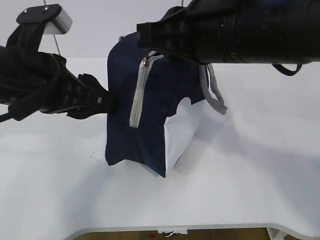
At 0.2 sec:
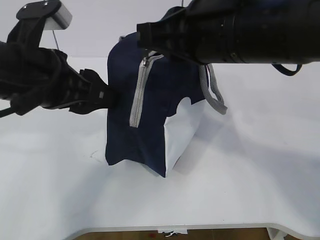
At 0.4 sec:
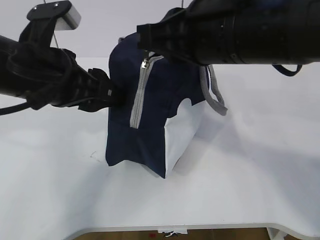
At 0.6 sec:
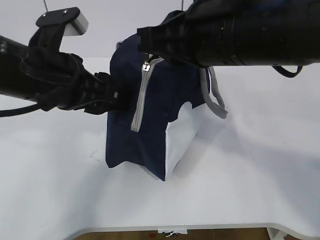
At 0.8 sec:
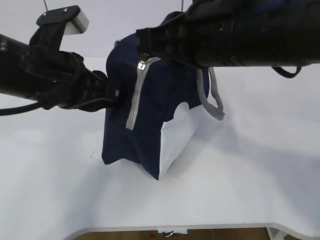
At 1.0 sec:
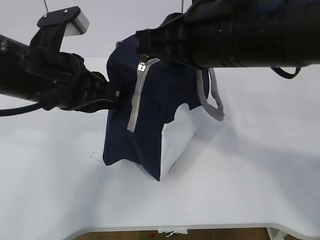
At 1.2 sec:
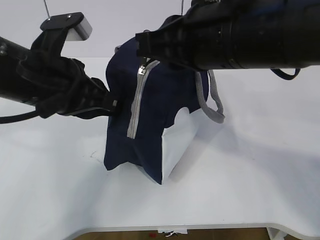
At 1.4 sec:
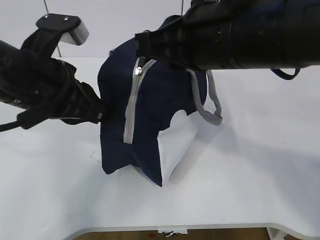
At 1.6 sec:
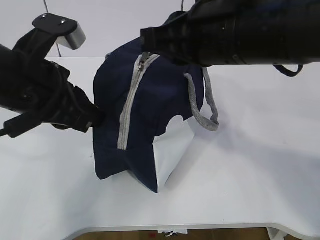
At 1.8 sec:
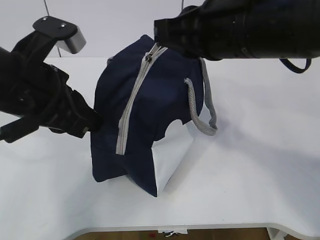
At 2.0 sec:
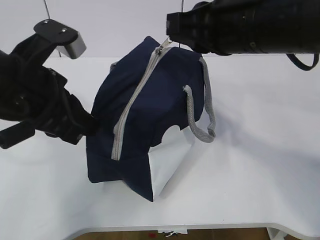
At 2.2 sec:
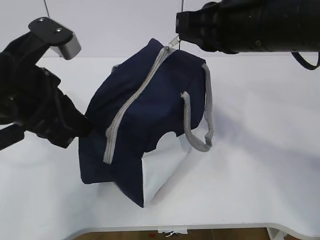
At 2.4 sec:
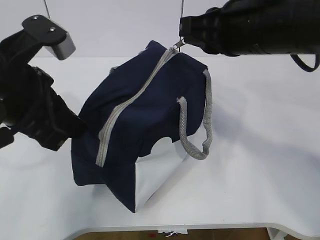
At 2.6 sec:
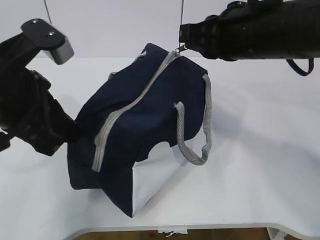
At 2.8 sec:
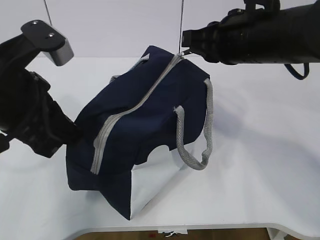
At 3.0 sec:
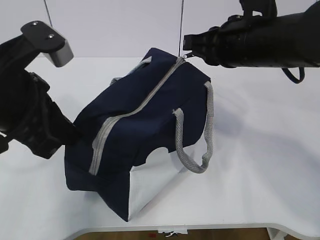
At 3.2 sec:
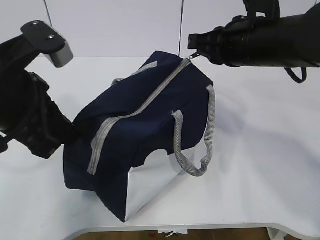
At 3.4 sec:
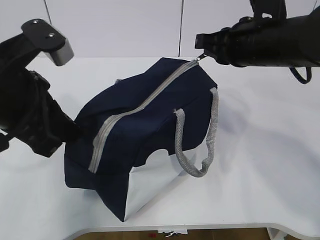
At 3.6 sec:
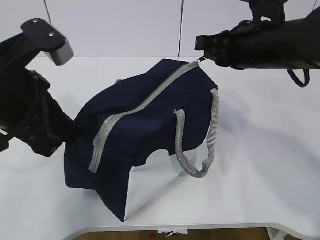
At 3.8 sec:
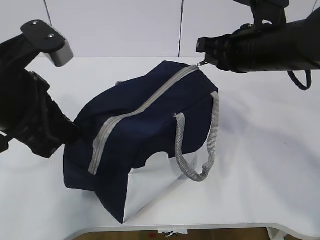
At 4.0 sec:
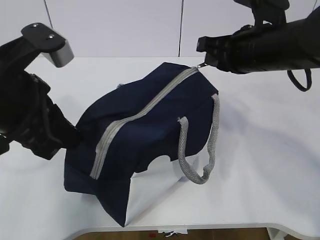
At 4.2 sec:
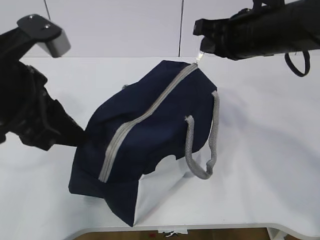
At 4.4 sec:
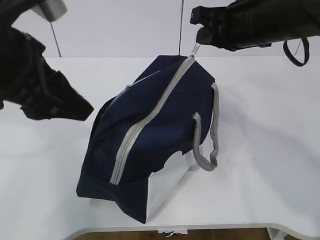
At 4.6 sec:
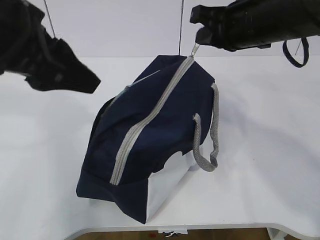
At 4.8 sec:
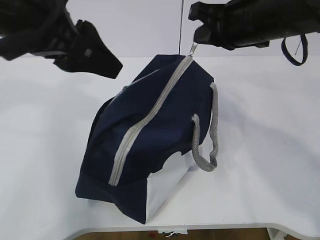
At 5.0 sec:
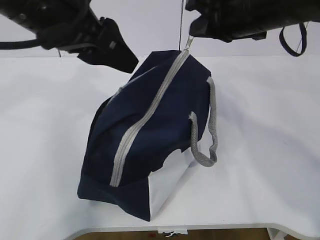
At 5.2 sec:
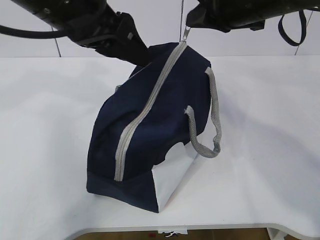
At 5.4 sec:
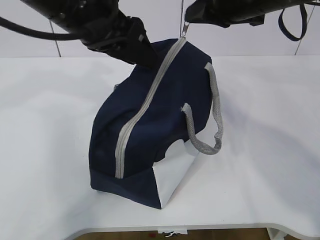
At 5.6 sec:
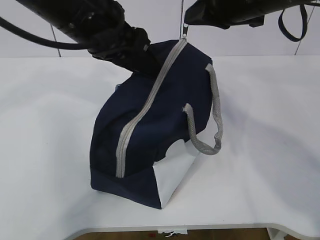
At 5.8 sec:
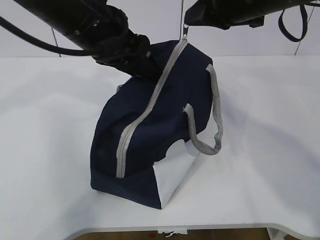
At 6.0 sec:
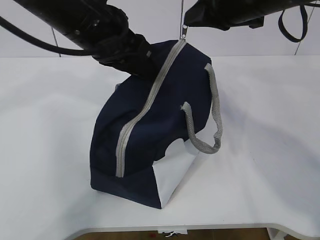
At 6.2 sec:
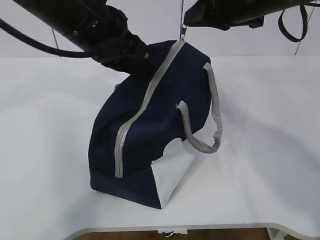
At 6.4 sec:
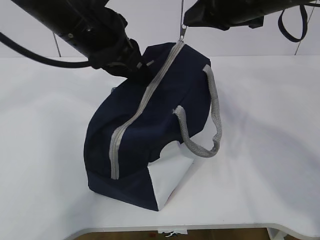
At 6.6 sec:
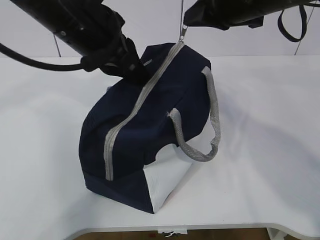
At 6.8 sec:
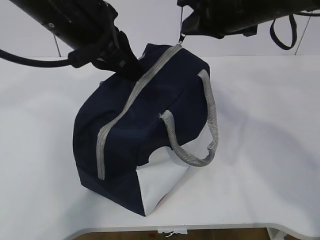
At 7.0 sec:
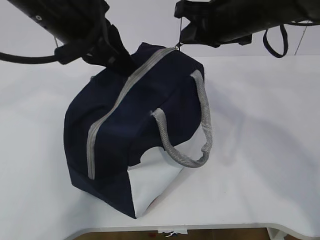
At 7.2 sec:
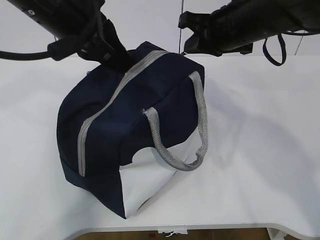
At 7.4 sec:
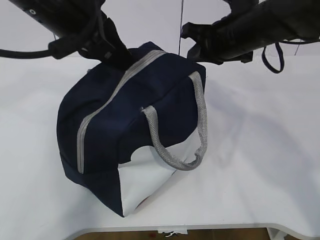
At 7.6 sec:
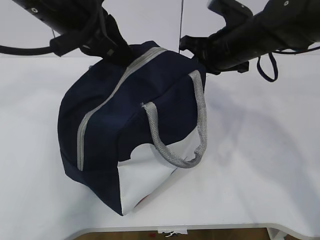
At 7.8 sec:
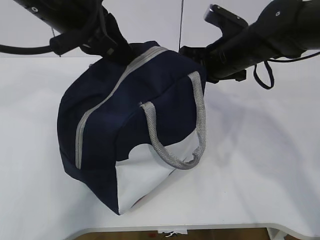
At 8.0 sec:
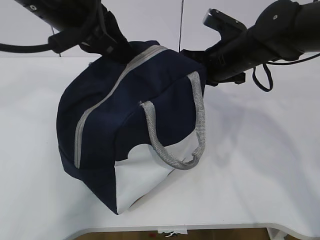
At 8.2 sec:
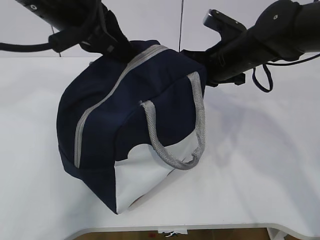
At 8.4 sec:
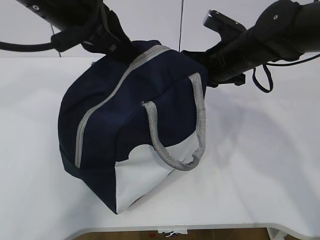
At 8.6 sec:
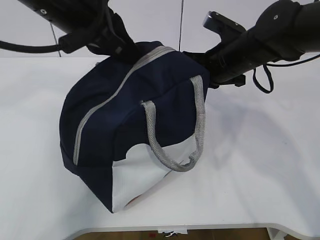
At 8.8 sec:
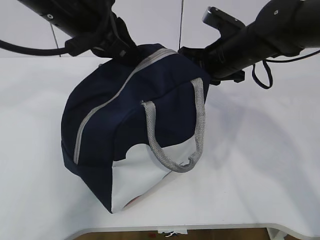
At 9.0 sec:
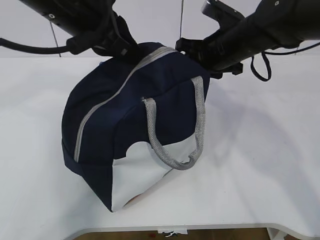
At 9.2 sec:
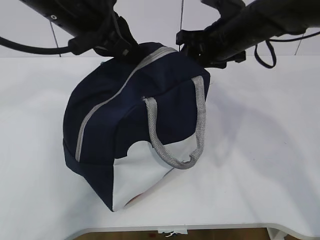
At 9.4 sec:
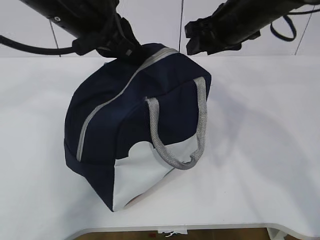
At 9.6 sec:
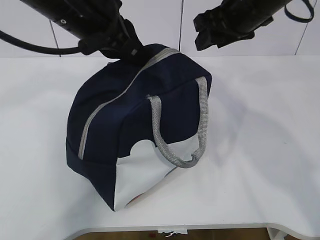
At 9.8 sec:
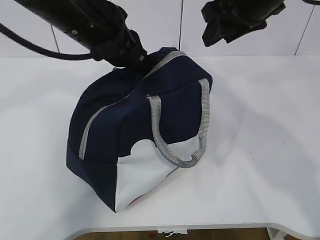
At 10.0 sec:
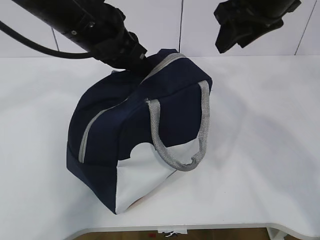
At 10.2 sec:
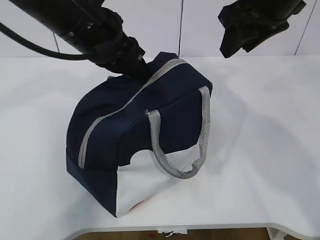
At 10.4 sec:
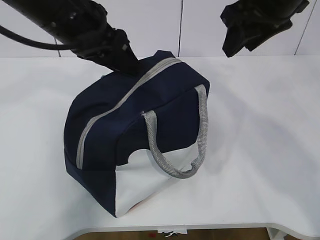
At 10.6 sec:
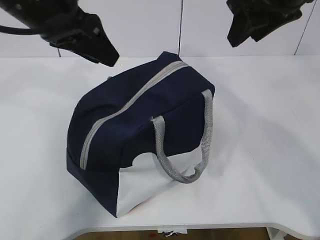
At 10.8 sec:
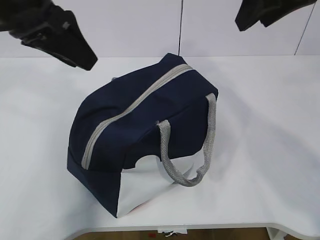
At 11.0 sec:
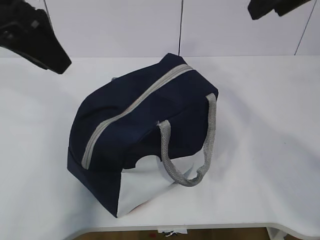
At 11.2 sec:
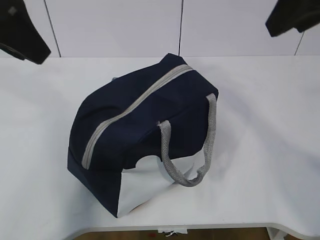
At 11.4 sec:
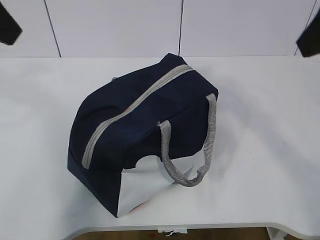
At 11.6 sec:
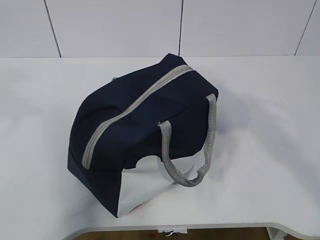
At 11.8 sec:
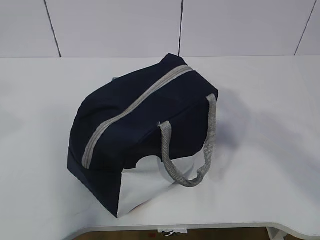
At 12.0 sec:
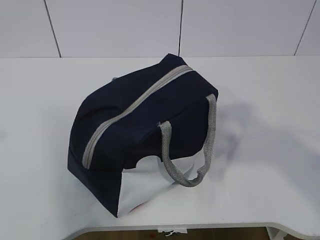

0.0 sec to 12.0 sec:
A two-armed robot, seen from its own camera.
0.0 sec to 1.6 sec: The left gripper closes its fingers.
1.6 sec to 3.0 sec: The right gripper goes about 10 cm forward and to the right.
3.0 sec to 4.4 sec: The left gripper opens its fingers.
4.4 sec to 6.0 sec: The left gripper goes about 10 cm forward and to the right, and closes up.
6.0 sec to 7.6 sec: The right gripper moves downward and forward, some 10 cm, while the left gripper closes up.
7.6 sec to 9.0 sec: The right gripper opens up.
9.0 sec to 10.4 sec: The left gripper opens. The right gripper moves upward and backward, approximately 15 cm.
10.4 sec to 12.0 sec: The right gripper heads backward, covering some 30 cm, while the left gripper goes about 30 cm backward, to the left and upward.

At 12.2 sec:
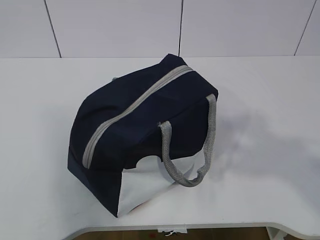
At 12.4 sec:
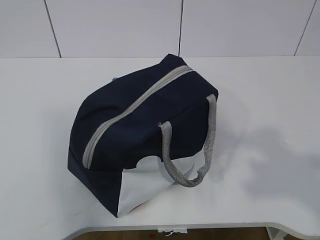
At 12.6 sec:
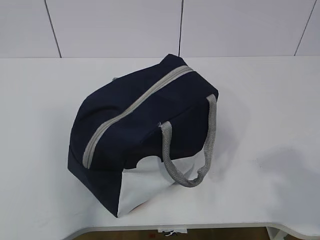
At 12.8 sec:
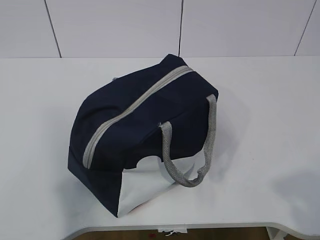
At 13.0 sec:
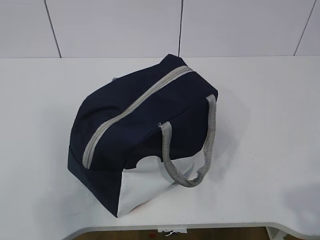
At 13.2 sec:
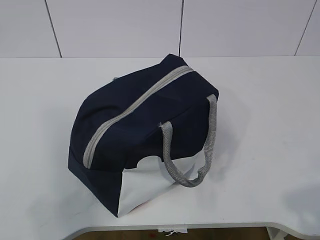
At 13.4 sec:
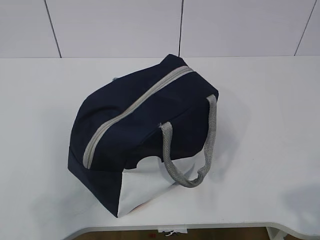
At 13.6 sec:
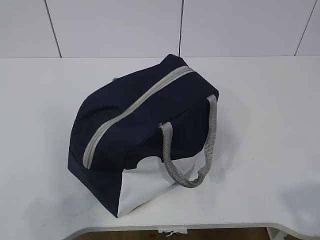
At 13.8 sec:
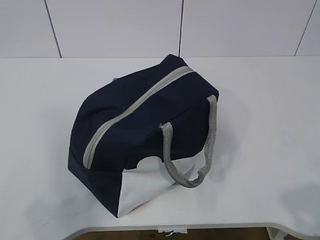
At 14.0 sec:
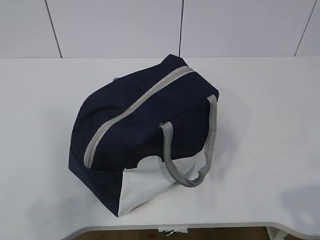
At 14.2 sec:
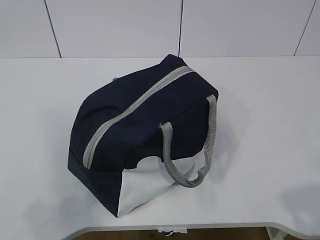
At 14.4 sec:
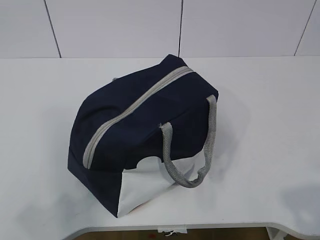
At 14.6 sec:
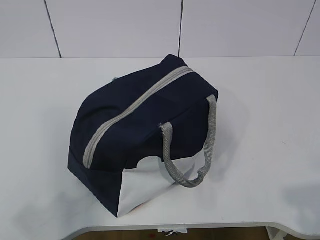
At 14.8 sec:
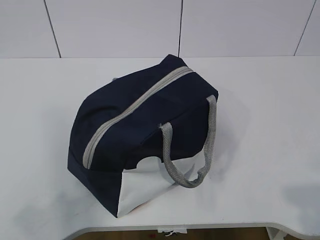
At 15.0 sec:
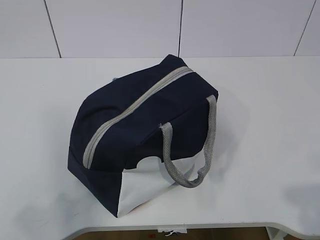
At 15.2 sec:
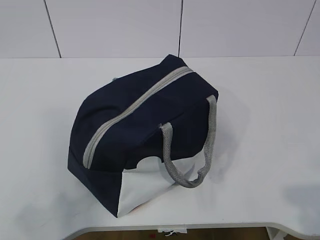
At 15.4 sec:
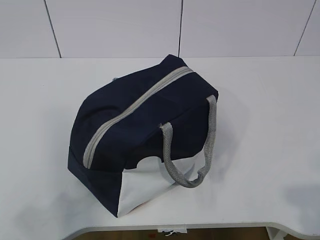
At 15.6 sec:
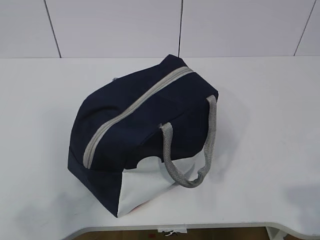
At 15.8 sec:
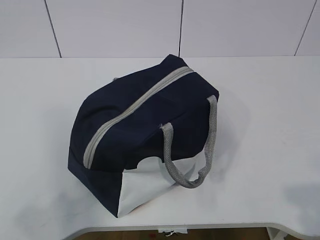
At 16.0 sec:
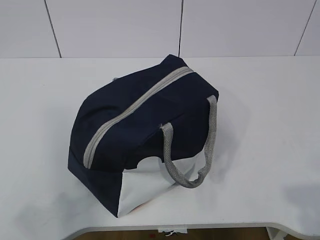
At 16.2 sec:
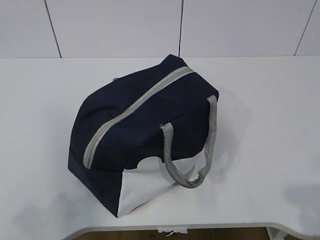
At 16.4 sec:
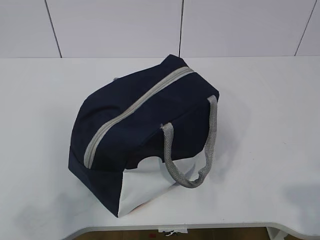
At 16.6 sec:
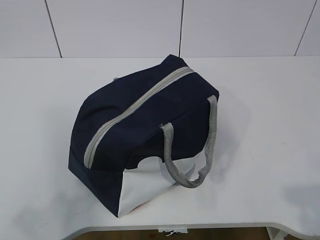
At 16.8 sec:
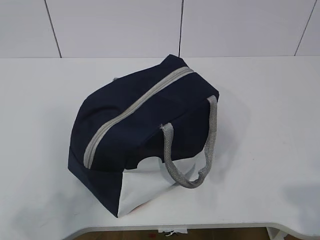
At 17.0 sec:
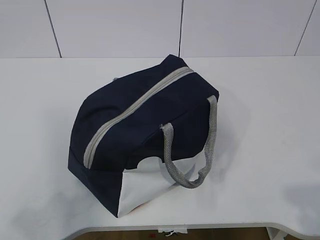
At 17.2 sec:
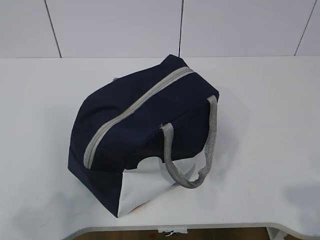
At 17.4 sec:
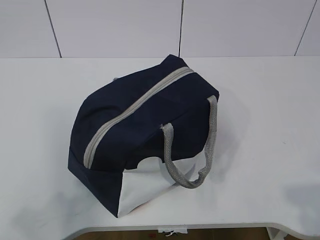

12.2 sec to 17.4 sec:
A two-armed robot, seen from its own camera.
12.2 sec to 14.0 sec: The left gripper travels downward and backward by some 15 cm, while the right gripper is displaced downward by some 15 cm.
14.0 sec to 15.6 sec: The grippers make only small movements.
15.6 sec to 17.4 sec: Both grippers stay about where they are.
